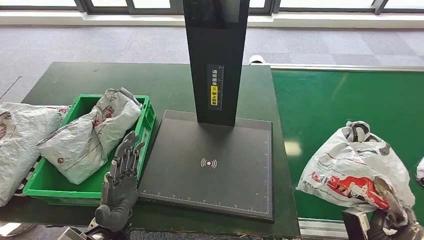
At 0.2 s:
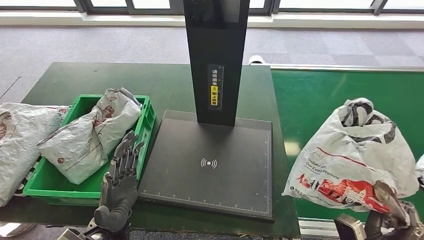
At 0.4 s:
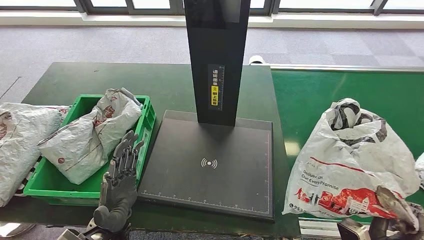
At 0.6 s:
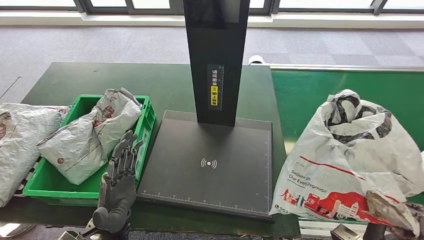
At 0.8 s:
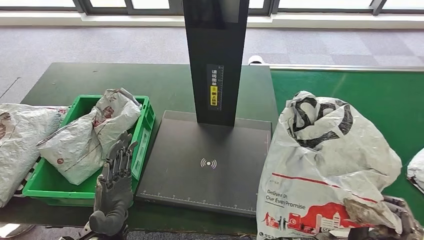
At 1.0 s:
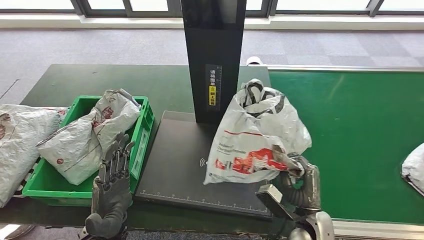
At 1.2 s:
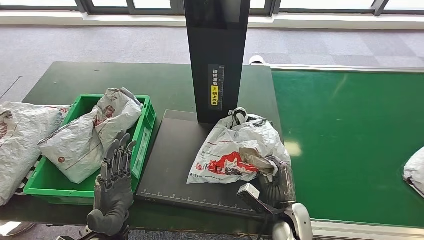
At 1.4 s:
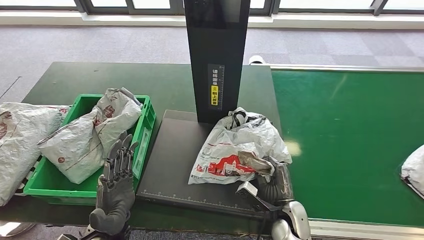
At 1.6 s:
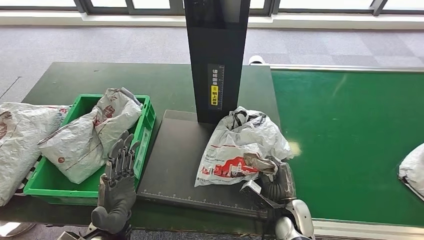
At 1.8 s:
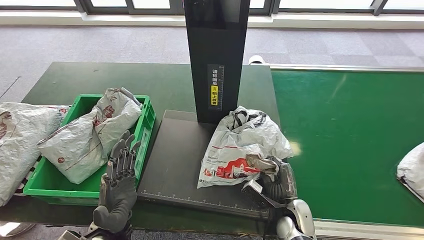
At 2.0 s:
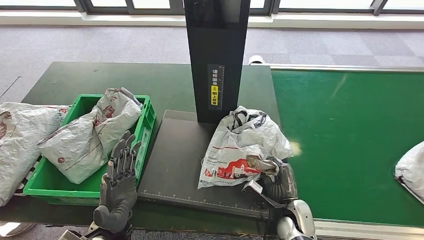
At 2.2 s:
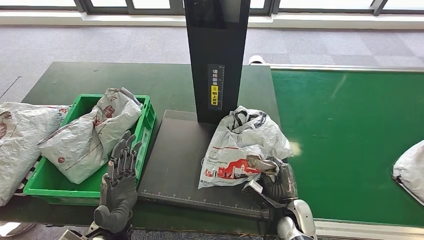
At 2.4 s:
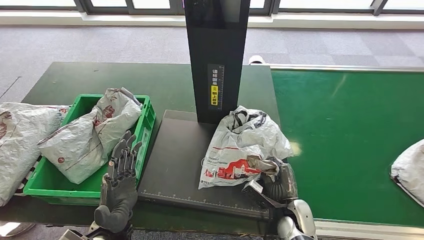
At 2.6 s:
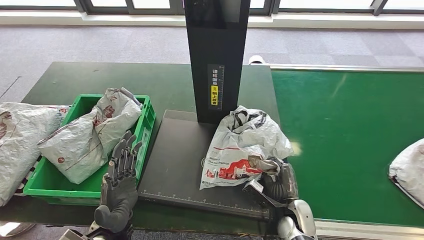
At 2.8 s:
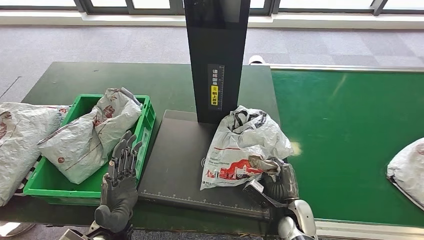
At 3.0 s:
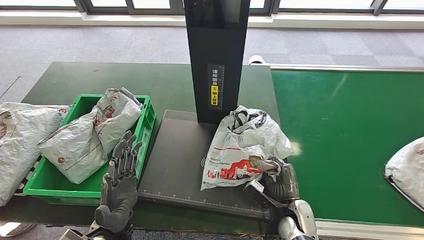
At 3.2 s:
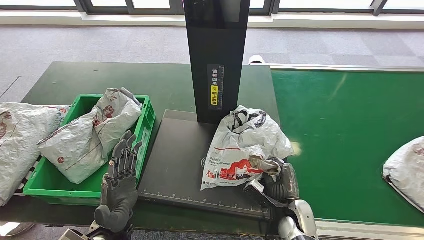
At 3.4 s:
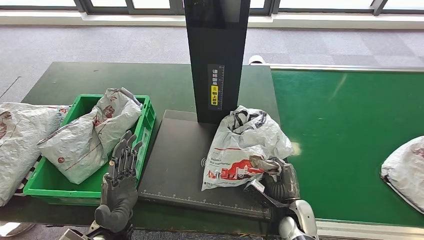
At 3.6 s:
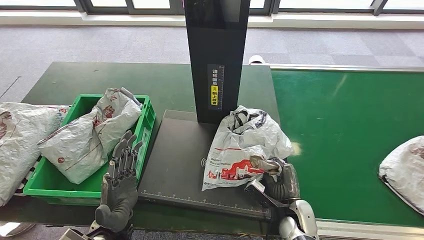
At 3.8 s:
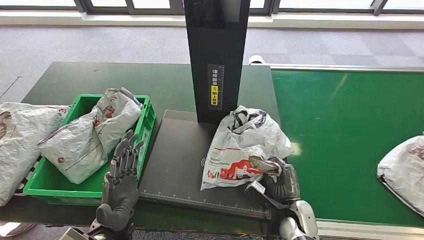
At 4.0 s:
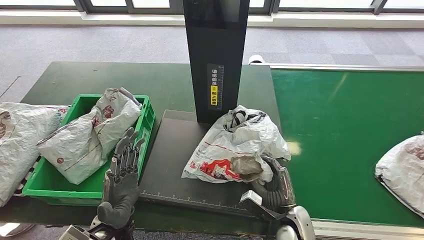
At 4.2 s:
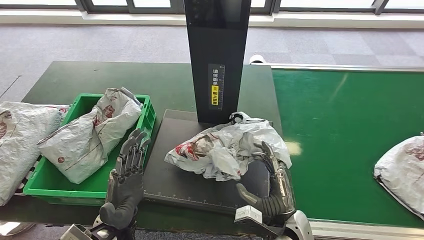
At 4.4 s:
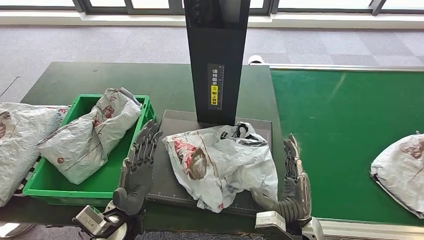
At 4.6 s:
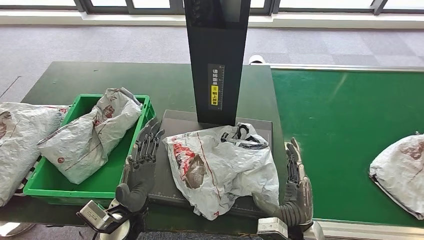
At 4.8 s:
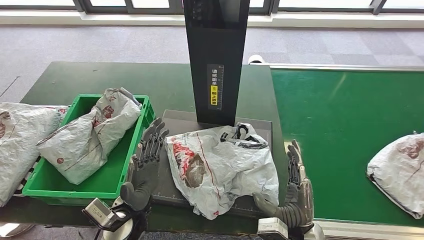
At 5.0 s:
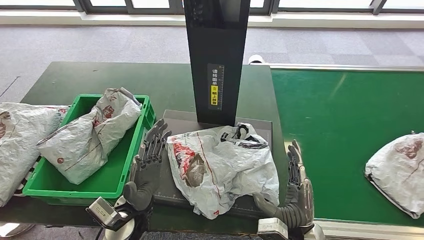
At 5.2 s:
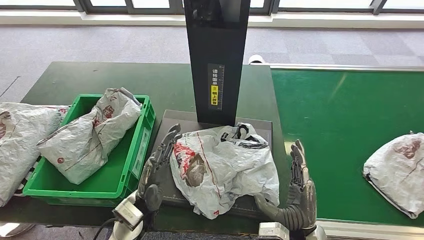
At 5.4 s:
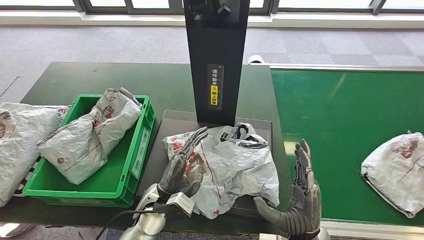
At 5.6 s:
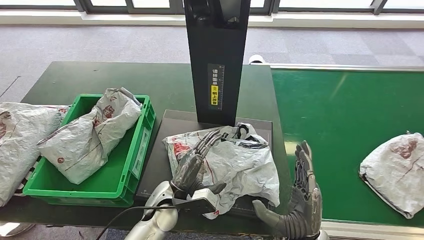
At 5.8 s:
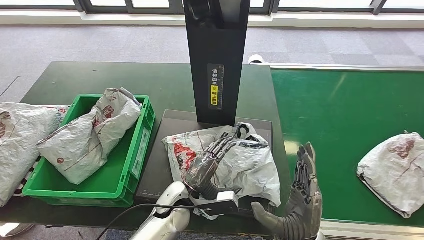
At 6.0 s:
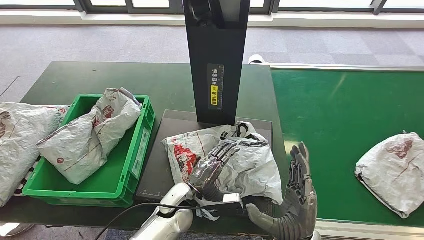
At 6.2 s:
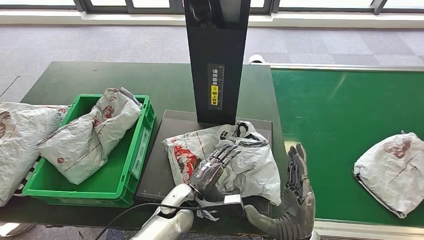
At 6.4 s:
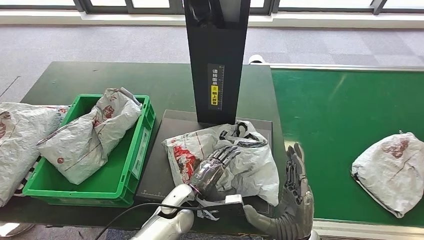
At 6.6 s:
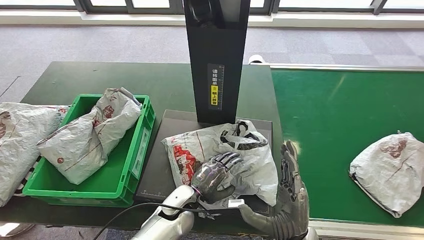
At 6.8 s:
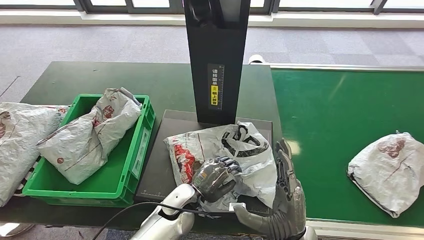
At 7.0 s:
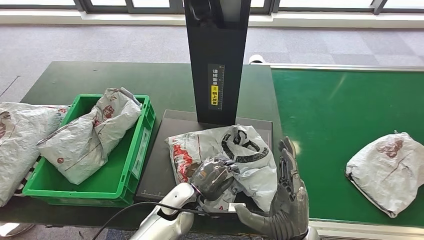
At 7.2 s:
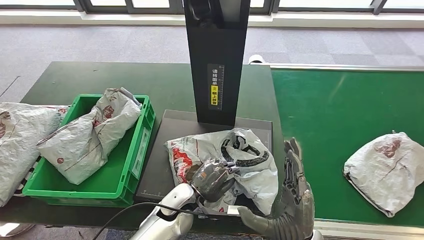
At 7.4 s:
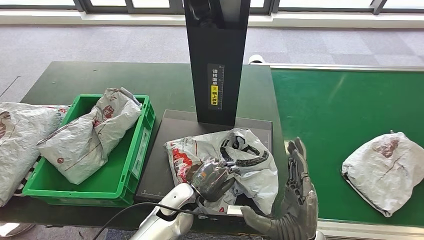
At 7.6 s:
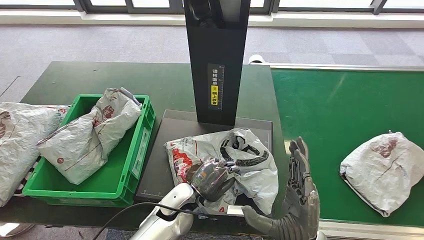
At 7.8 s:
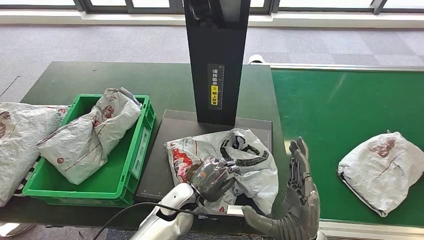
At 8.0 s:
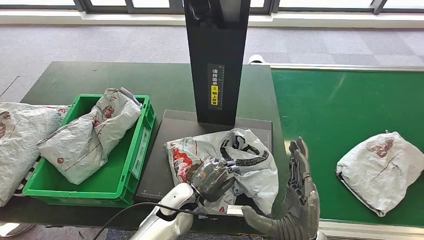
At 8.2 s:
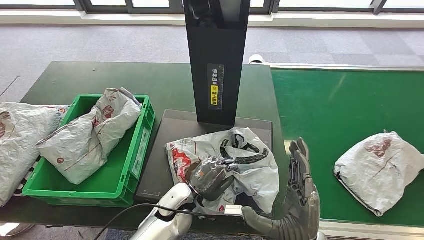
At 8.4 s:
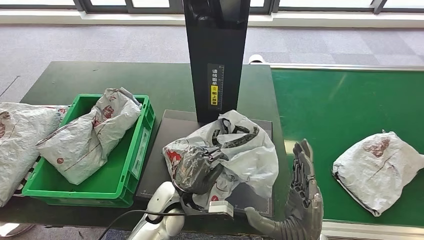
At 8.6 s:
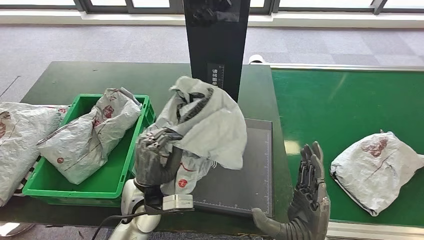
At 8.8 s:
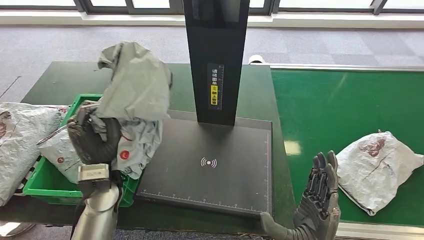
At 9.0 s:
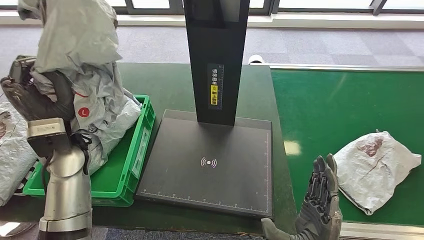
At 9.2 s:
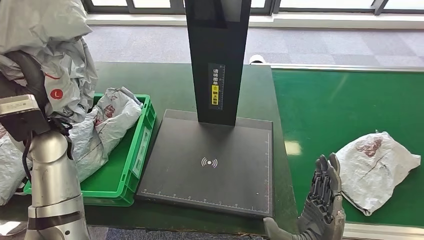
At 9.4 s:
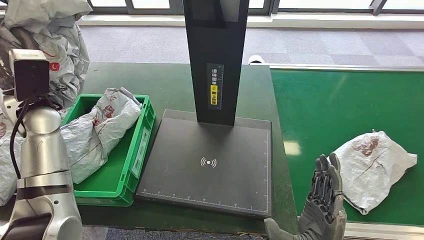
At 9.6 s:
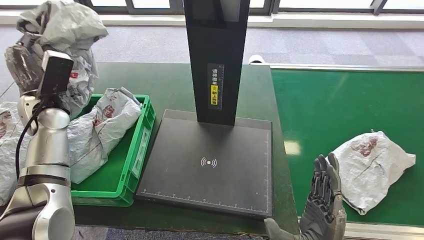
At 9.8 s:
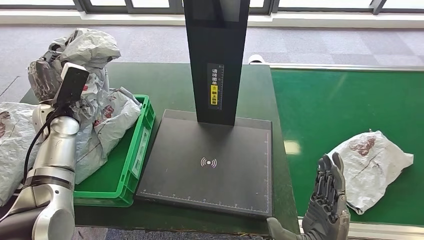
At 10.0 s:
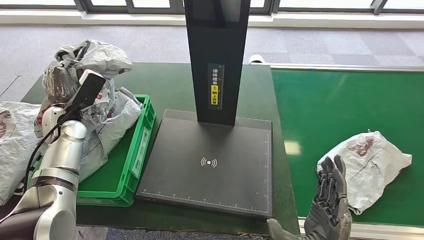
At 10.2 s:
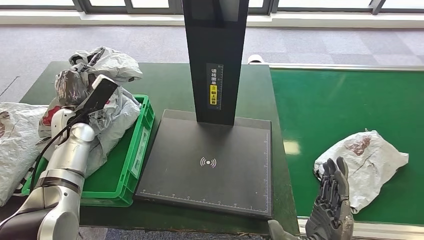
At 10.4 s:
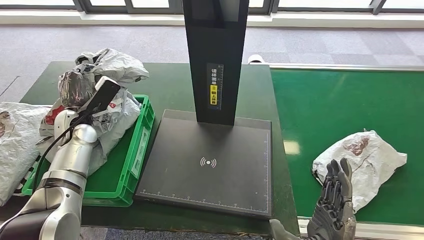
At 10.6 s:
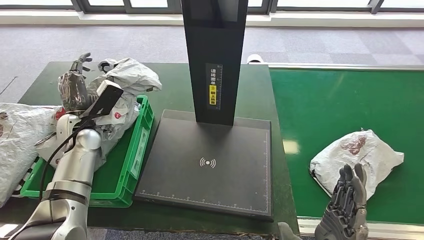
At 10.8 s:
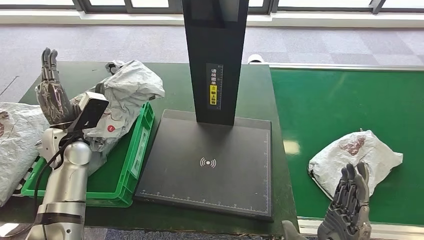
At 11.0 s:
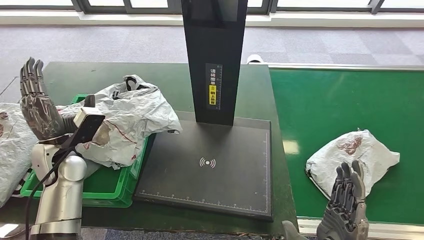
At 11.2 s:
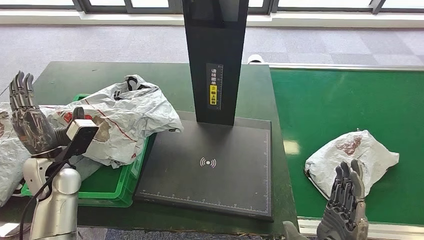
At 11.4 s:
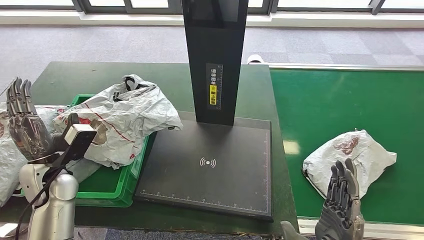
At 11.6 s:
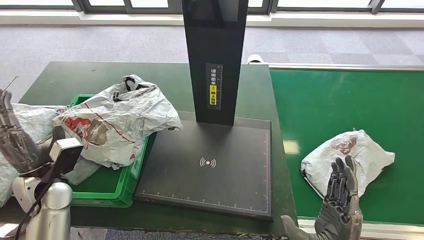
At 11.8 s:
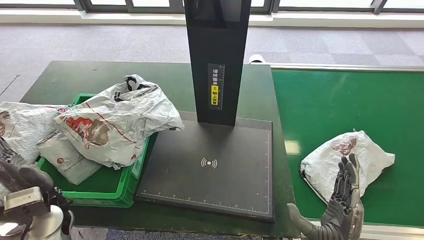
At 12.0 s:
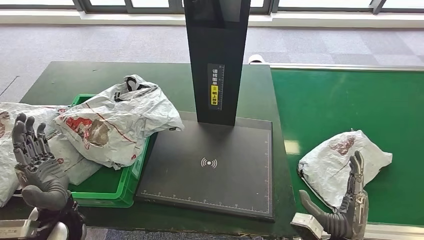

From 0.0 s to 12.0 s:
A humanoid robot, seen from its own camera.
Step, from 0.0 s to 1.0 s: Pick up the parcel from the conveyor belt.
Step, from 1.2 s to 3.2 s: Place the parcel onto the inbound machine.
Step, from 7.0 s to 8.4 s: Pick up the parcel from the inbound machine.
Step, from 8.8 s to 11.6 s: Place the parcel into the delivery box.
From 1.6 s to 3.0 s: There are only small adjustments of the hands.
From 3.0 s to 4.4 s: The right hand goes roughly 10 cm upward and backward.
From 4.4 s to 6.0 s: The left hand goes some 10 cm to the right and downward.
From 6.0 s to 7.6 s: The hands move only a little.

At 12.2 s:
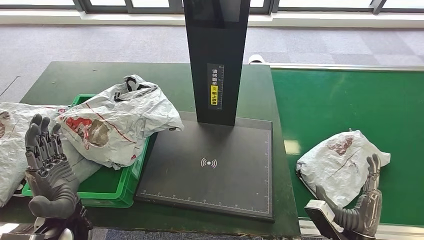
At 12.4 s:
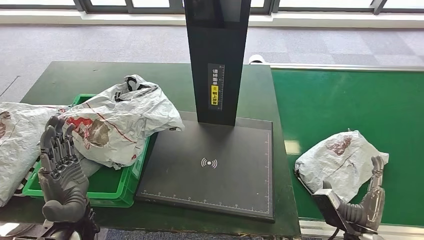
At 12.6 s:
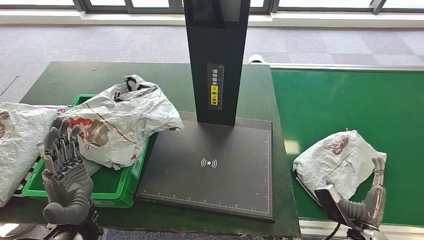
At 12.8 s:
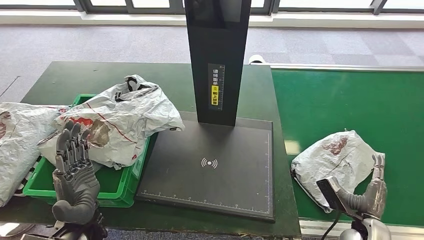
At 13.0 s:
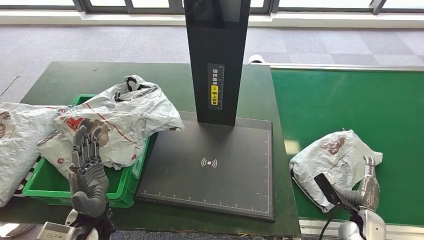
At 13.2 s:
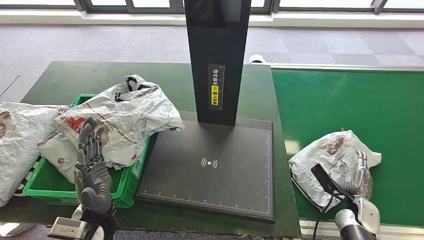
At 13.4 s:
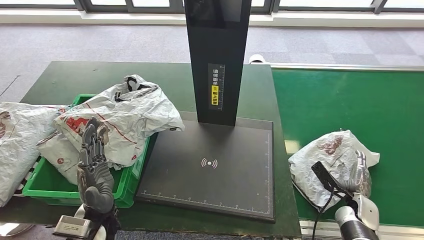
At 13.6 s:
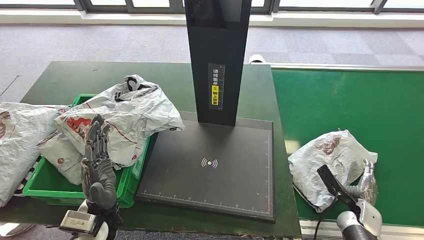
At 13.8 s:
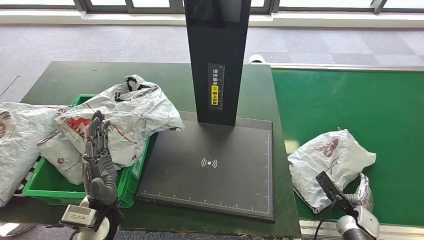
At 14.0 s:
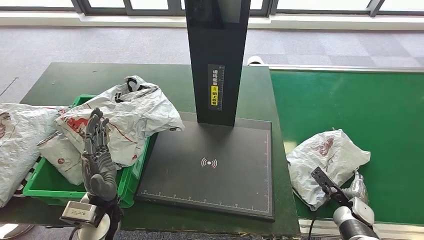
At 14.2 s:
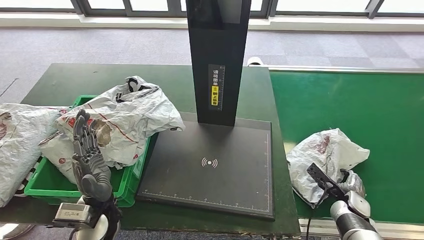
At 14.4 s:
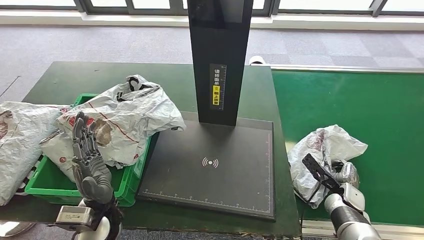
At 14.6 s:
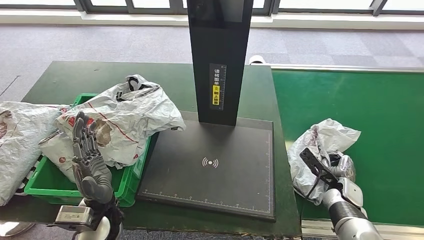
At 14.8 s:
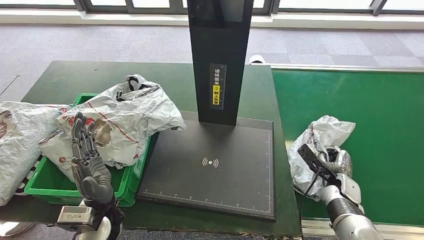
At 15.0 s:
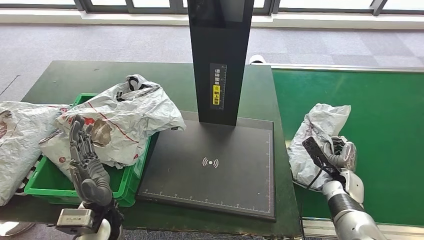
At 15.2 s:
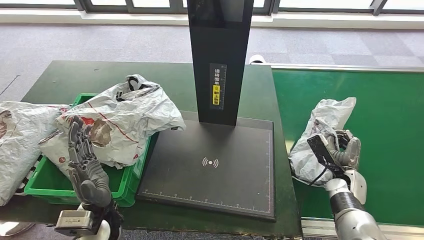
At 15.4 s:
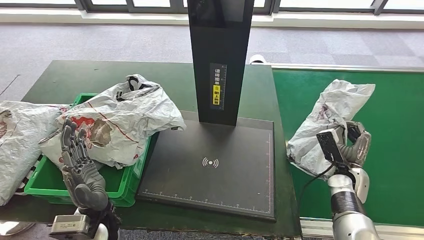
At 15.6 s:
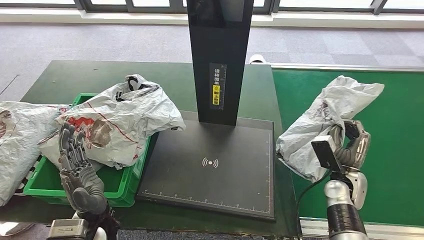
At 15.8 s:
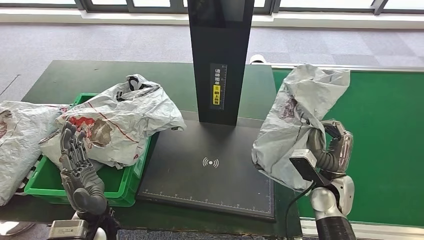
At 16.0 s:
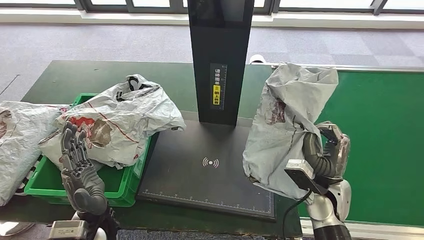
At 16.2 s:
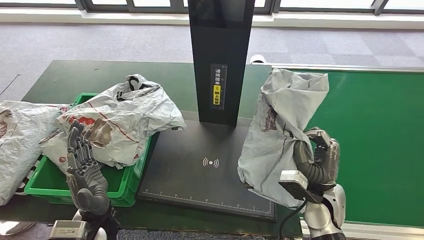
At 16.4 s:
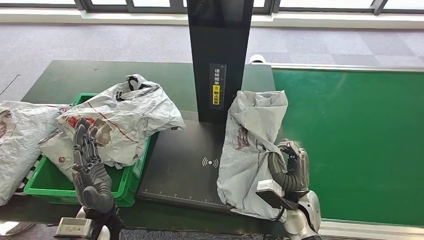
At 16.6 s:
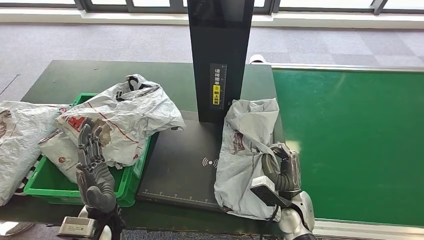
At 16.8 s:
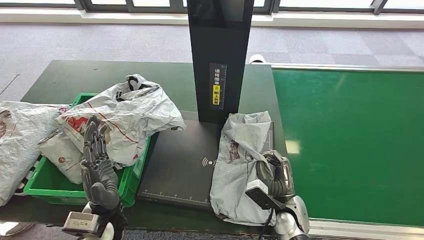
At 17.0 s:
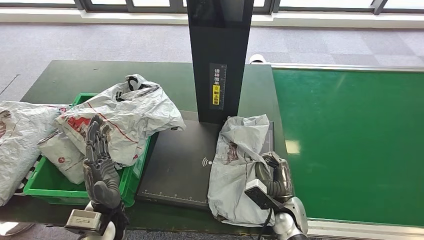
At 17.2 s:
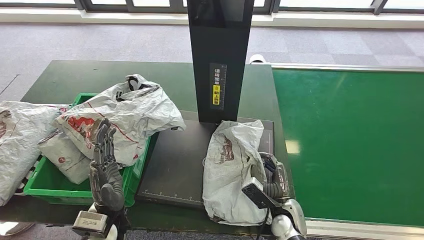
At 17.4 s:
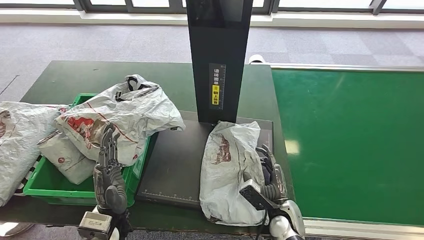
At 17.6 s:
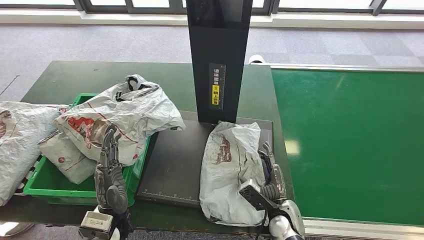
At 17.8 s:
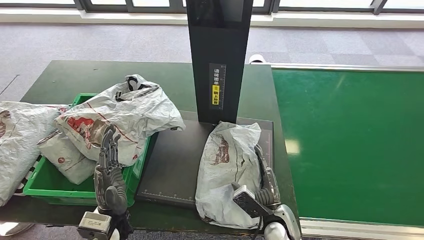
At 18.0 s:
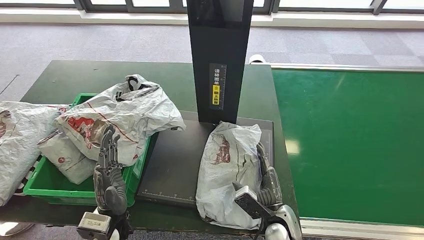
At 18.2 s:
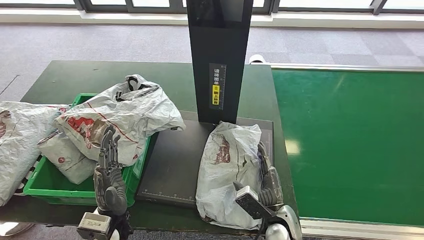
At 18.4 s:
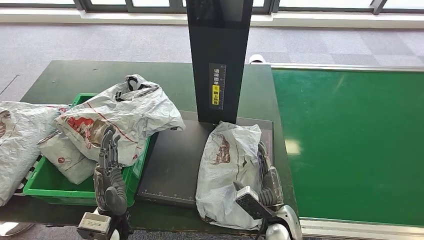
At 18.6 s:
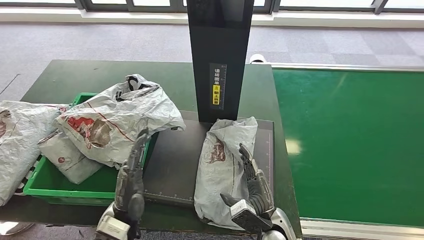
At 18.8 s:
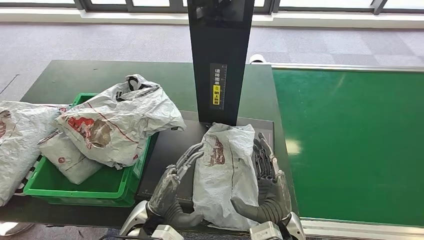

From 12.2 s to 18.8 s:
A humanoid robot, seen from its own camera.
Step, from 12.2 s to 15.6 s: Pick up the parcel from the conveyor belt.
Step, from 16.0 s to 18.4 s: Place the parcel onto the inbound machine.
From 12.2 s to 13.8 s: The left hand is displaced to the right by approximately 5 cm. The right hand moves downward, to the right and forward, approximately 15 cm.
From 17.2 s to 18.8 s: The right hand travels upward and backward by about 15 cm. The left hand is displaced to the right by roughly 5 cm.
